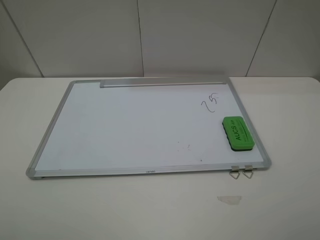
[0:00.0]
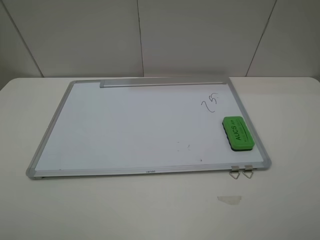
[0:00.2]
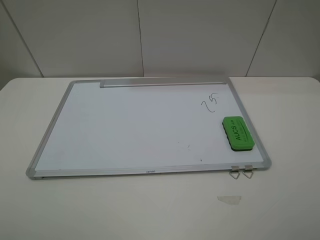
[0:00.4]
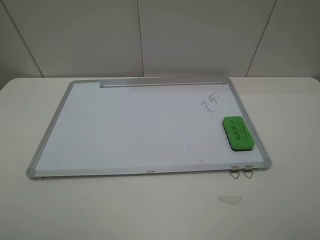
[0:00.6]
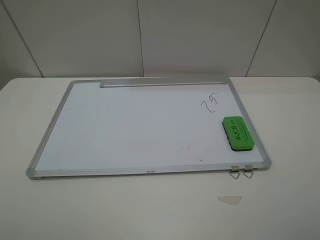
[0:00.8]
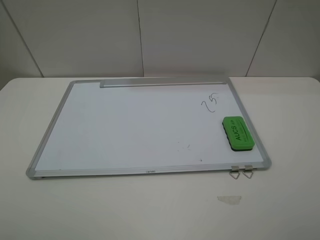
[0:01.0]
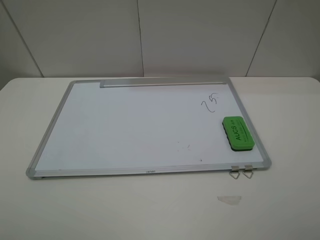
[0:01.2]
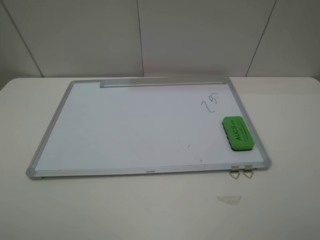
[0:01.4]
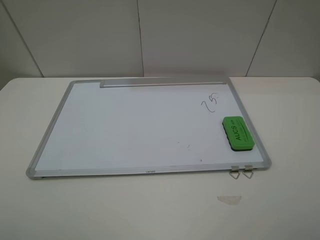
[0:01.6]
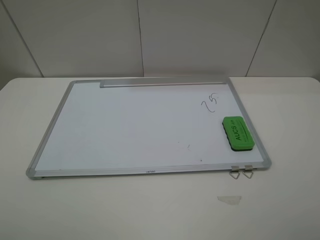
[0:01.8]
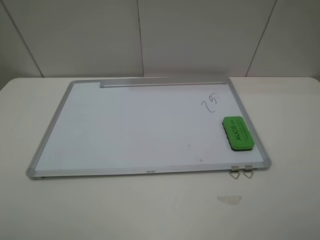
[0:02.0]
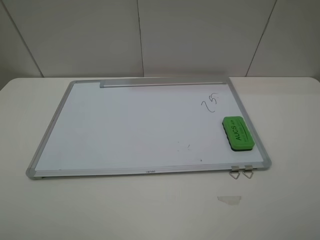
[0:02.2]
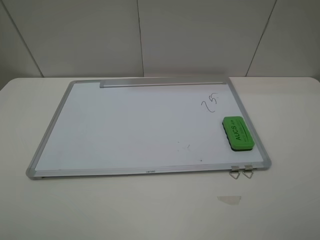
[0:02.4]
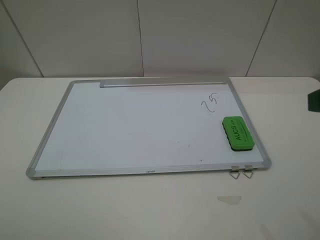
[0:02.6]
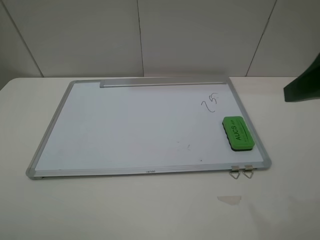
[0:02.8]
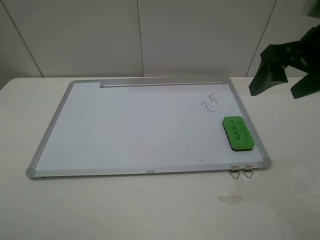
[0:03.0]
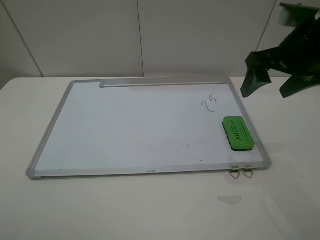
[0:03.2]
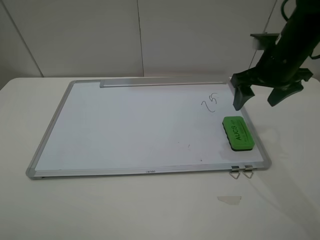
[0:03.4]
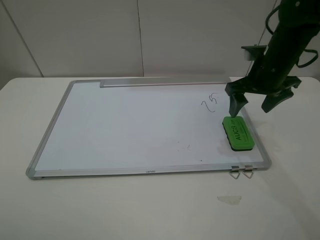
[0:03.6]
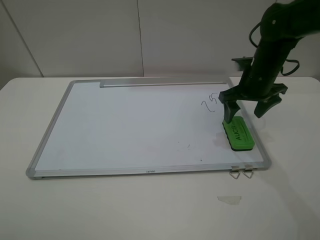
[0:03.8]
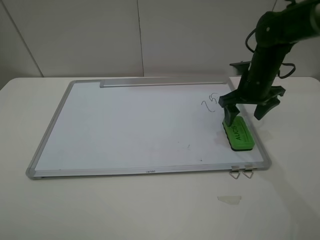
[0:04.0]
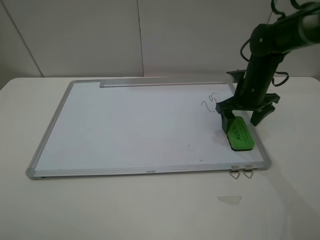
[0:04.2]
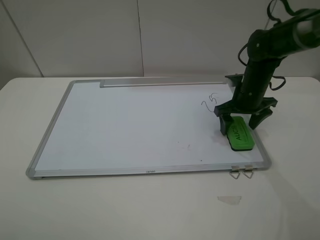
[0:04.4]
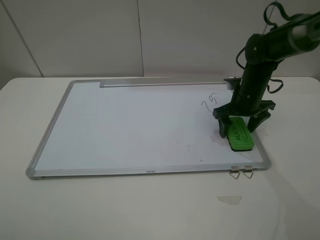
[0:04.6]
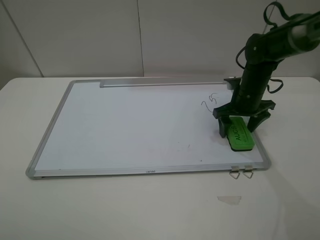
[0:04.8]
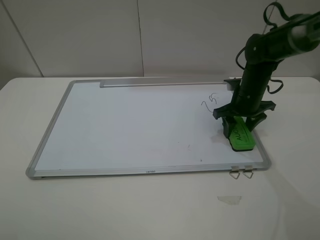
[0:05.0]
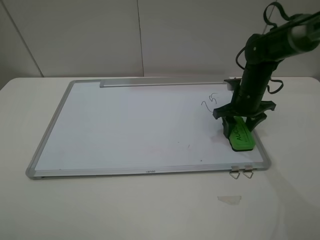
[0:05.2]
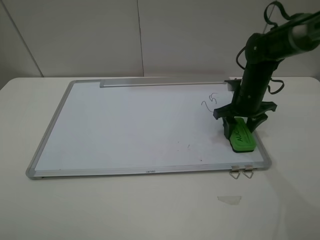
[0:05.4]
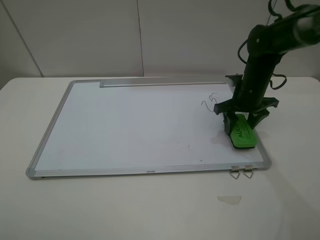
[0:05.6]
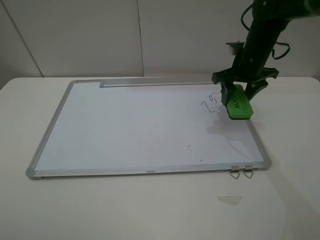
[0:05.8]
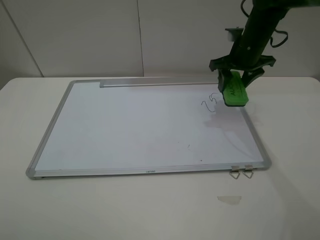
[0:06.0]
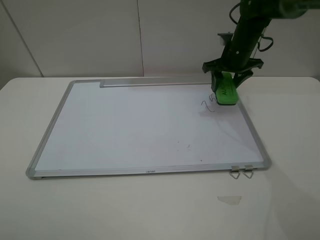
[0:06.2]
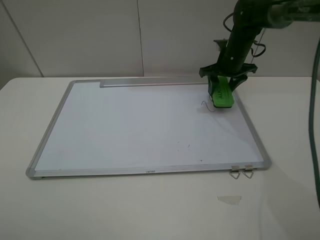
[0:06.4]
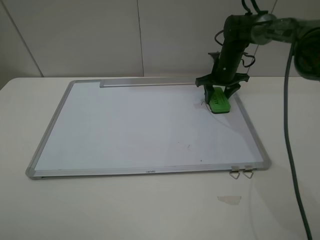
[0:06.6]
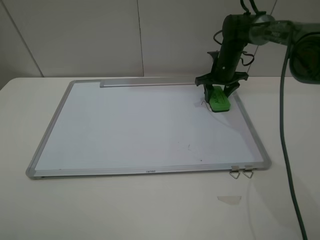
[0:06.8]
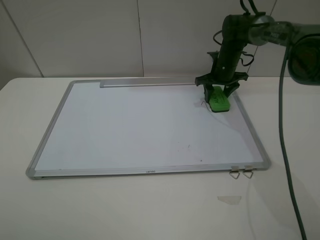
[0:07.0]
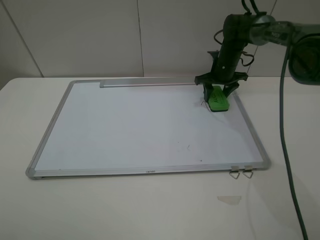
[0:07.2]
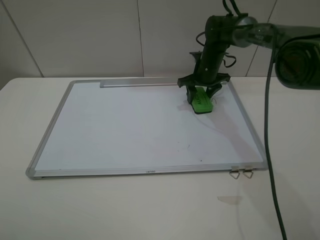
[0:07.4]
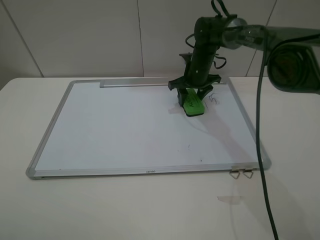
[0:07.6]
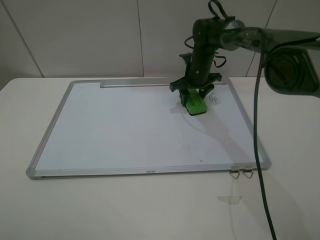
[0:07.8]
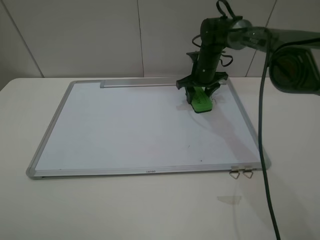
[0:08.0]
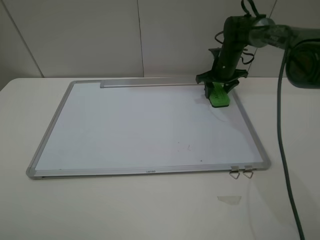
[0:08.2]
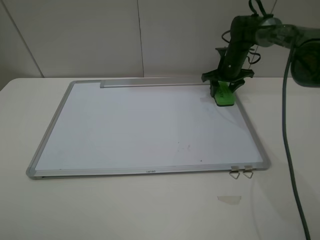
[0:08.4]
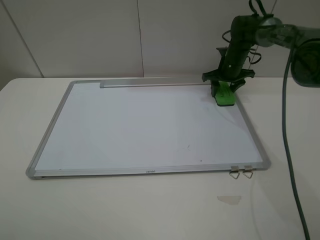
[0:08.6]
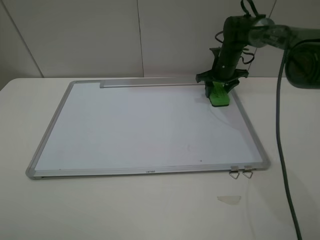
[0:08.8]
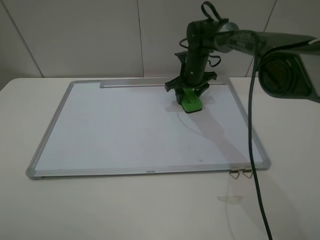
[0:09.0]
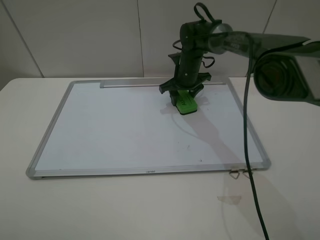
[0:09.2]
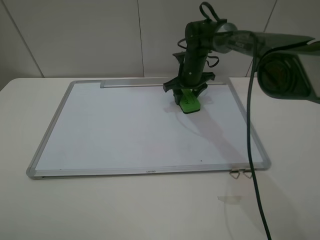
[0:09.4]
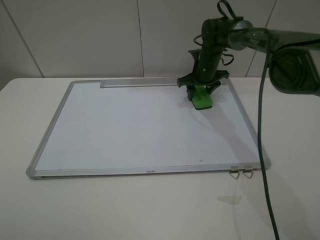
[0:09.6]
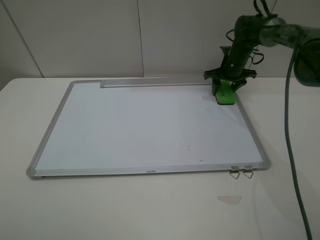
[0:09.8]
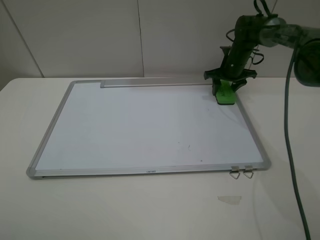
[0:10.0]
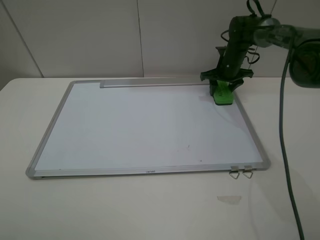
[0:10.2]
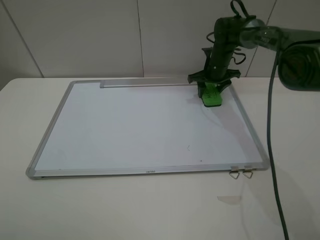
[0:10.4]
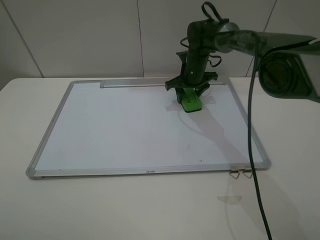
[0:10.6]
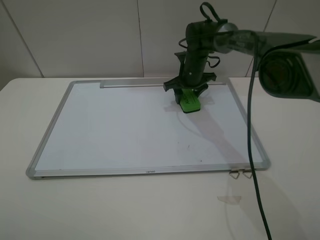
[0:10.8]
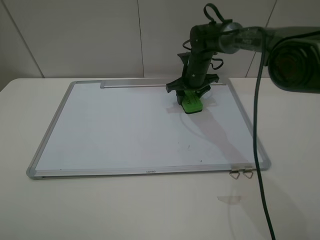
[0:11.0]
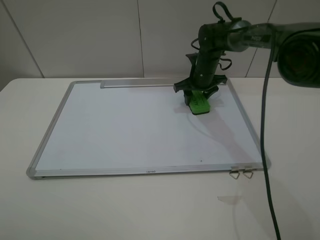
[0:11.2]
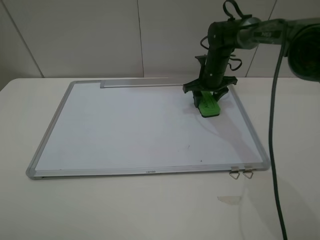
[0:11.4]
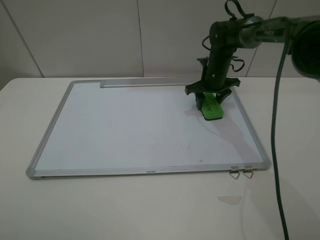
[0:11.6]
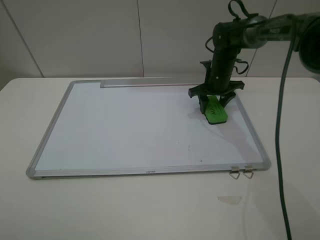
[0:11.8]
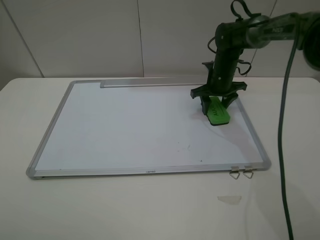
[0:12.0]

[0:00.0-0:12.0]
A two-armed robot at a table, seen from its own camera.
Step, 0:00.0 to 0:05.0: Grasp the eraser with the right gripper.
0:00.0 to 0:01.6: Neither gripper changes place.
0:01.6 to 0:03.0: The right gripper is displaced forward by some 25 cm.
0:03.0 to 0:04.4: The right gripper is displaced downward and forward by approximately 20 cm.
0:04.4 to 0:06.0: The right gripper shifts some 10 cm upward and forward, and closes its fingers.
0:06.0 to 0:07.6: The right gripper travels downward, to the left and forward by about 15 cm.
0:07.6 to 0:09.0: The right gripper goes to the right and returns, some 10 cm each way.
0:09.0 to 0:10.4: The right gripper heads to the right, covering roughly 5 cm.
0:10.4 to 0:12.0: The right gripper travels backward by about 5 cm, and travels to the left and back again, some 5 cm each way.

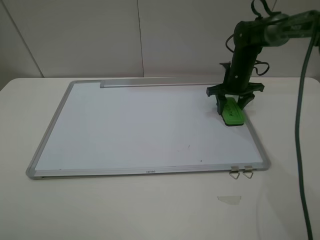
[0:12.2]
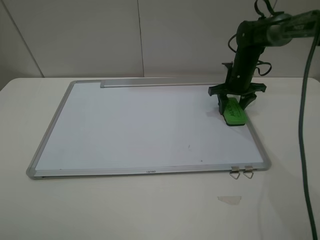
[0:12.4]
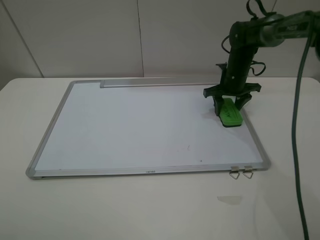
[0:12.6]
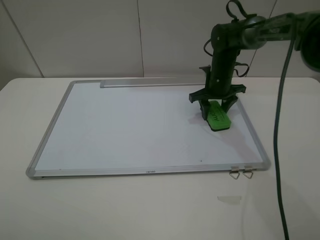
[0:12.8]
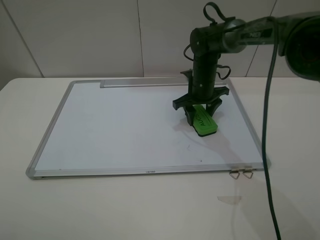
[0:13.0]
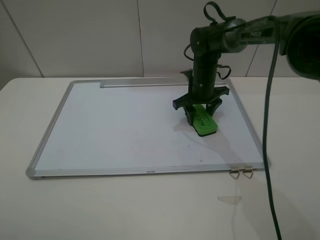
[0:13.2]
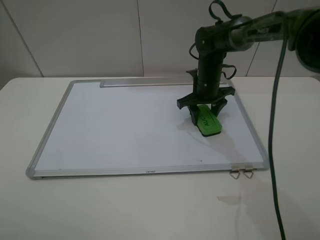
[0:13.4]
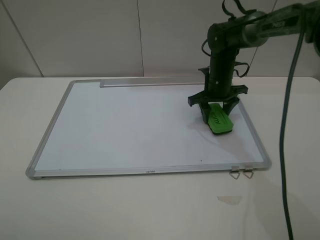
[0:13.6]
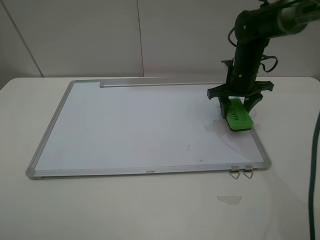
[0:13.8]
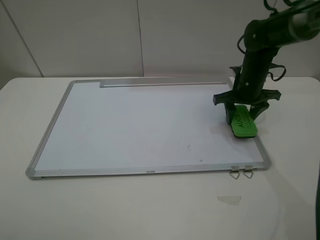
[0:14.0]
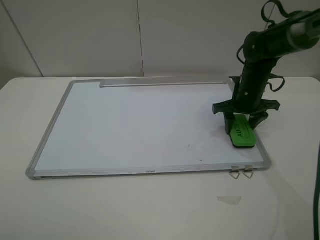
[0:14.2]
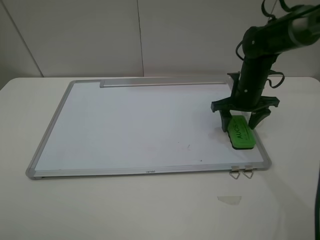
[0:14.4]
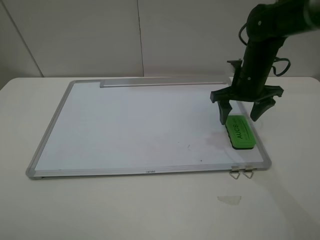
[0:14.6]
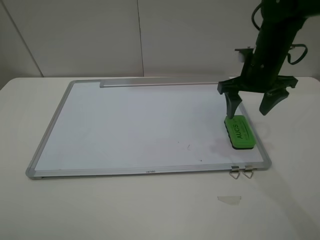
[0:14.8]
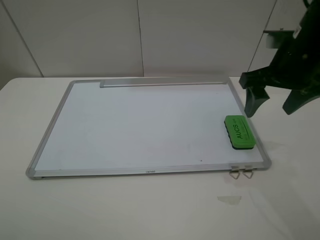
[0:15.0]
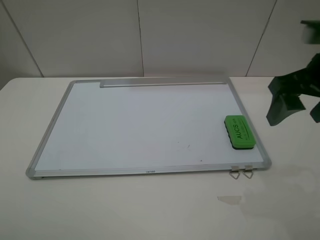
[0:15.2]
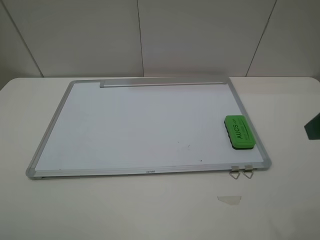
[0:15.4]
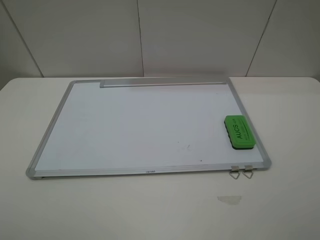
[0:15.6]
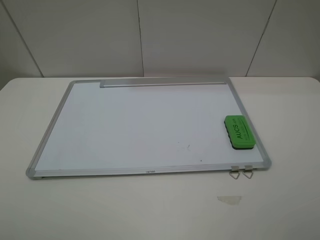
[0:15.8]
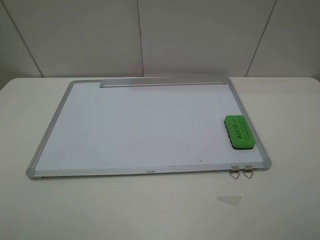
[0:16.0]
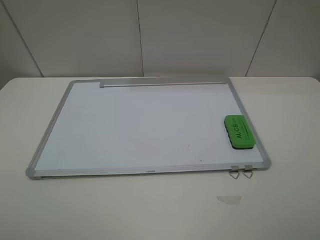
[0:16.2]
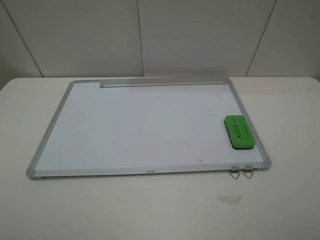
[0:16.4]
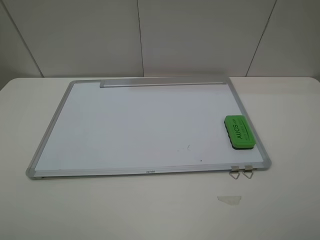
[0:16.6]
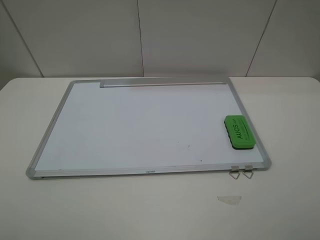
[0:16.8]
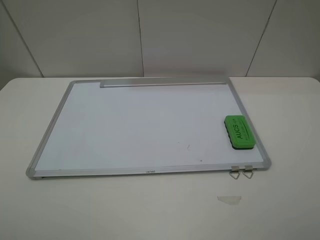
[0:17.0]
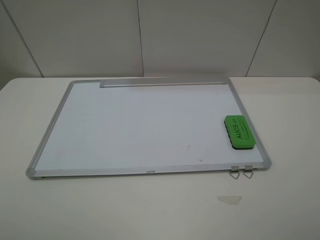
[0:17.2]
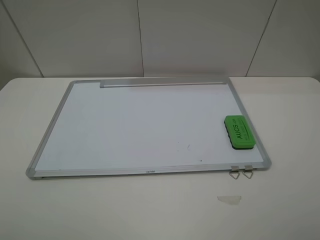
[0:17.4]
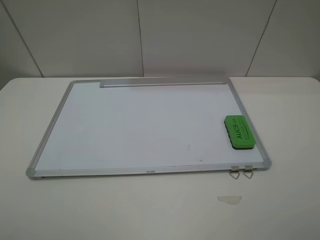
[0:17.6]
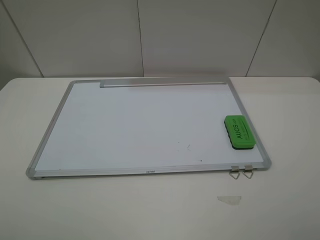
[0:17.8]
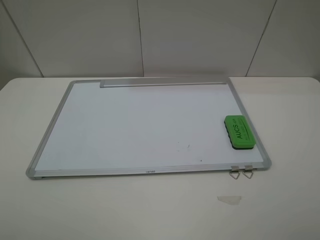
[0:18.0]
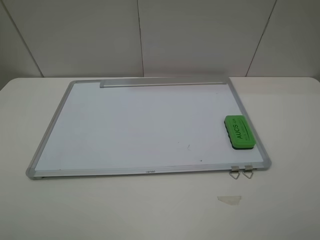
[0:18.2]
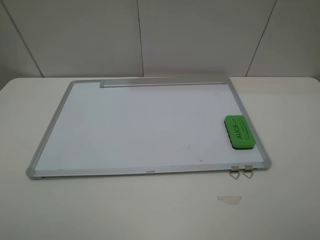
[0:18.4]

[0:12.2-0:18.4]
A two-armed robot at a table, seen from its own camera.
Step, 0:13.4 to 0:14.2: Place the eraser with the right gripper.
0:12.2 to 0:13.8: The right gripper goes some 10 cm upward and backward, and moves approximately 10 cm to the left and comes back.
0:13.8 to 0:15.4: The right gripper moves backward and upward, about 35 cm, and opens its fingers.
